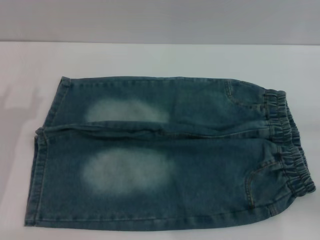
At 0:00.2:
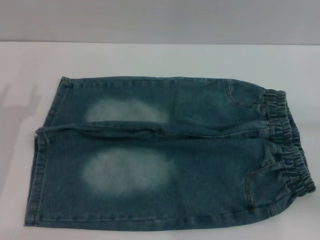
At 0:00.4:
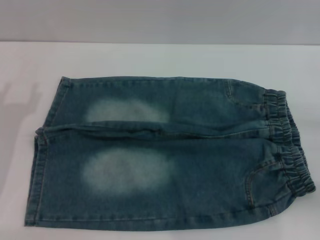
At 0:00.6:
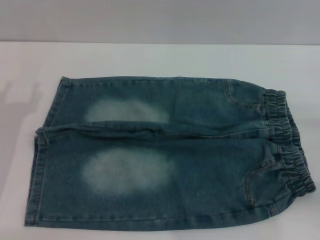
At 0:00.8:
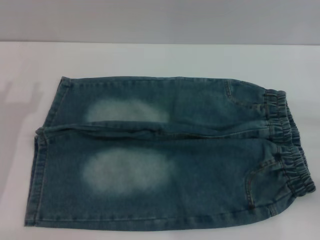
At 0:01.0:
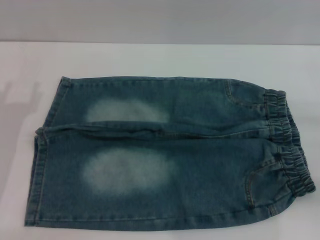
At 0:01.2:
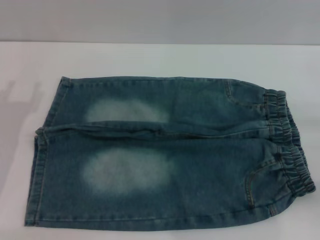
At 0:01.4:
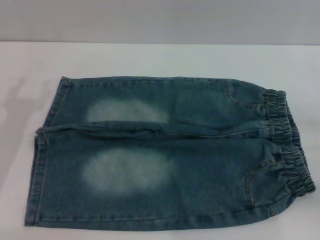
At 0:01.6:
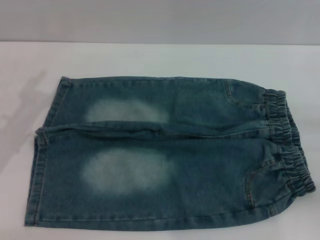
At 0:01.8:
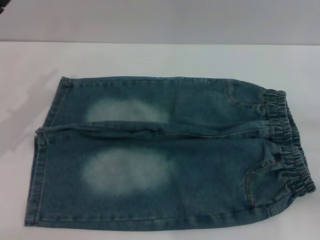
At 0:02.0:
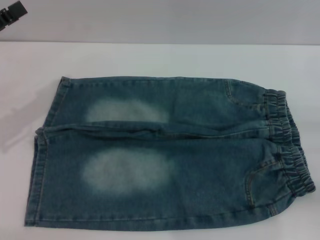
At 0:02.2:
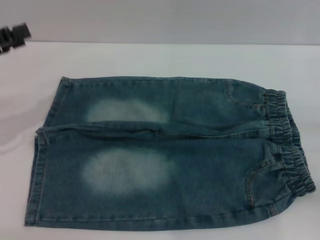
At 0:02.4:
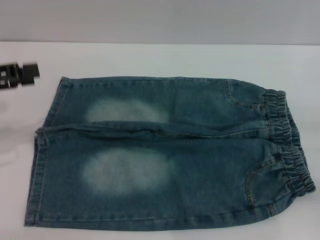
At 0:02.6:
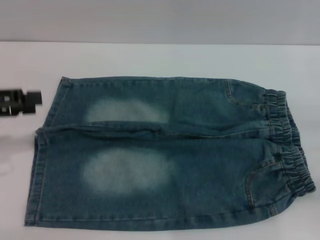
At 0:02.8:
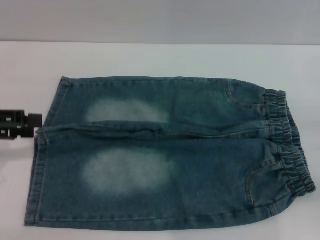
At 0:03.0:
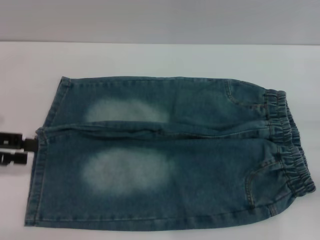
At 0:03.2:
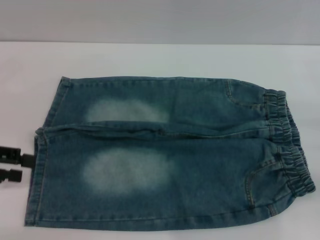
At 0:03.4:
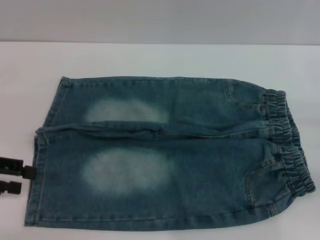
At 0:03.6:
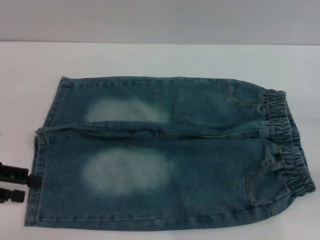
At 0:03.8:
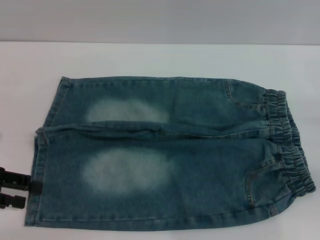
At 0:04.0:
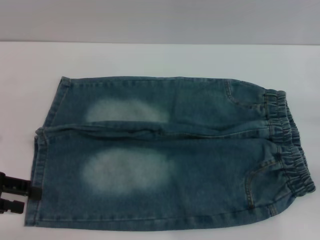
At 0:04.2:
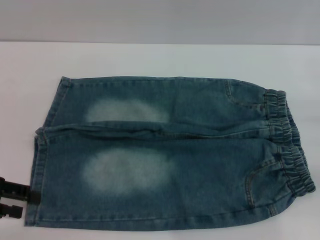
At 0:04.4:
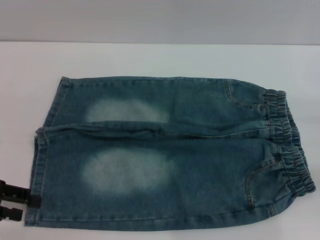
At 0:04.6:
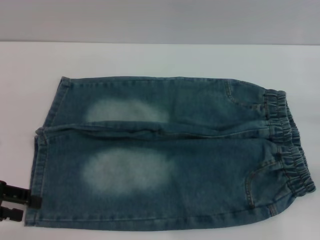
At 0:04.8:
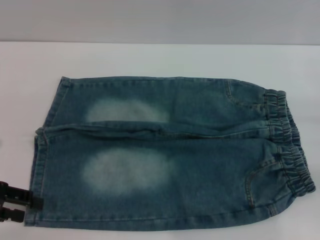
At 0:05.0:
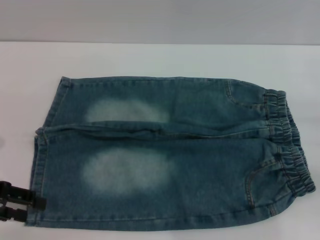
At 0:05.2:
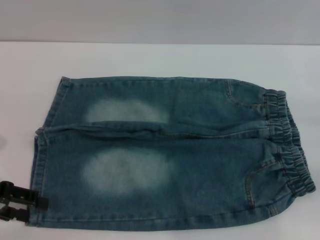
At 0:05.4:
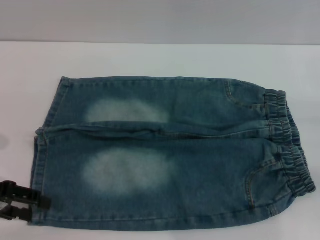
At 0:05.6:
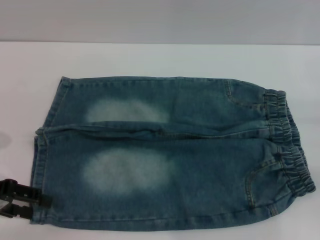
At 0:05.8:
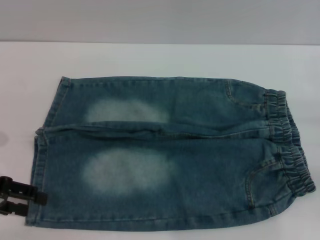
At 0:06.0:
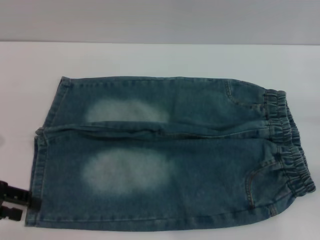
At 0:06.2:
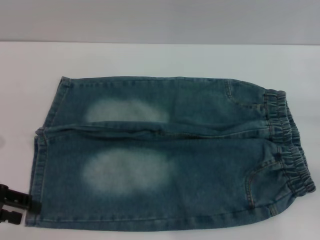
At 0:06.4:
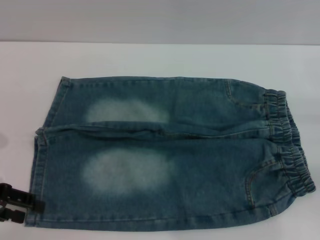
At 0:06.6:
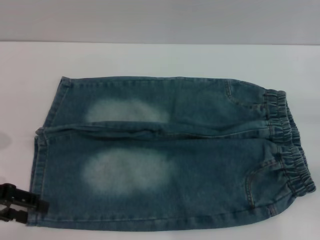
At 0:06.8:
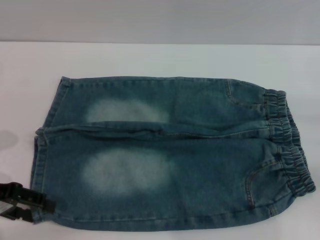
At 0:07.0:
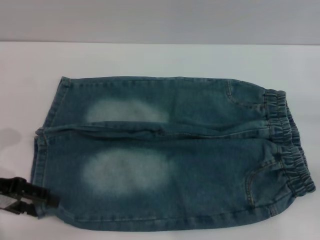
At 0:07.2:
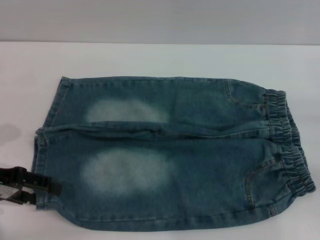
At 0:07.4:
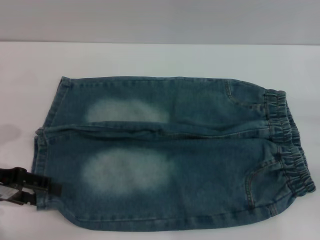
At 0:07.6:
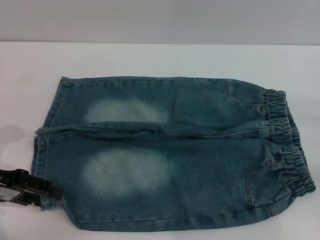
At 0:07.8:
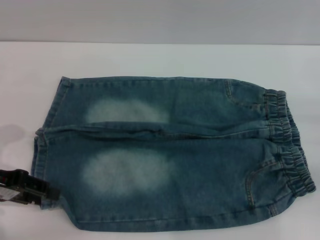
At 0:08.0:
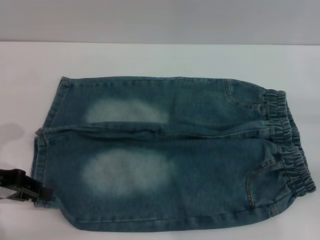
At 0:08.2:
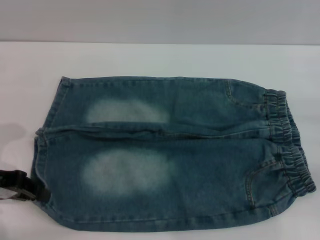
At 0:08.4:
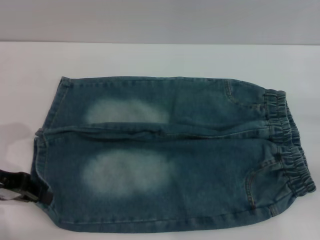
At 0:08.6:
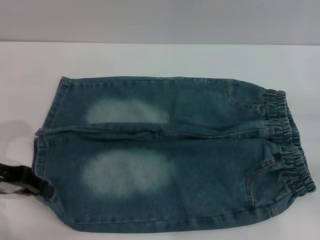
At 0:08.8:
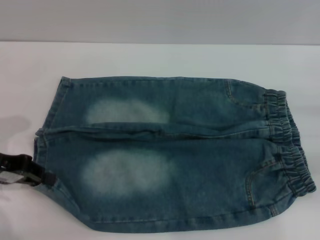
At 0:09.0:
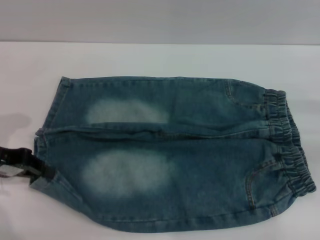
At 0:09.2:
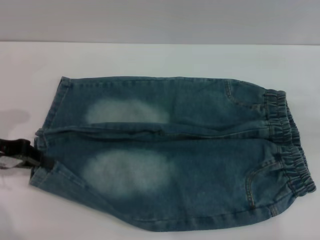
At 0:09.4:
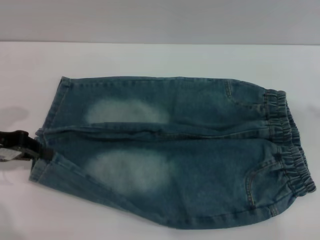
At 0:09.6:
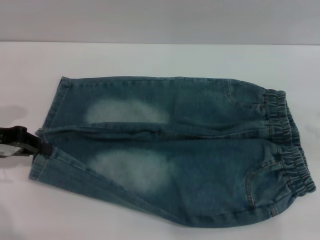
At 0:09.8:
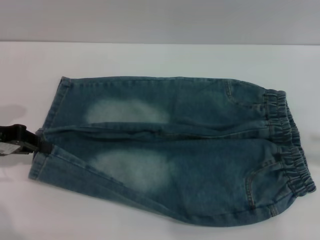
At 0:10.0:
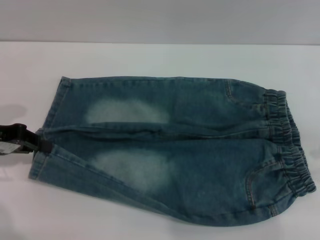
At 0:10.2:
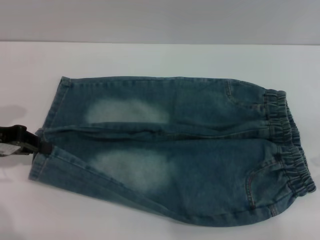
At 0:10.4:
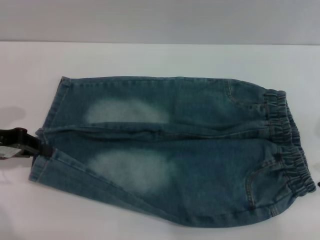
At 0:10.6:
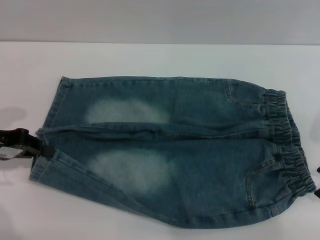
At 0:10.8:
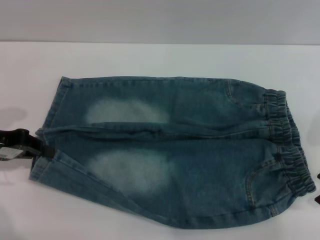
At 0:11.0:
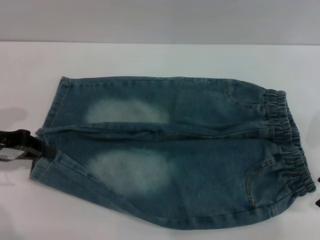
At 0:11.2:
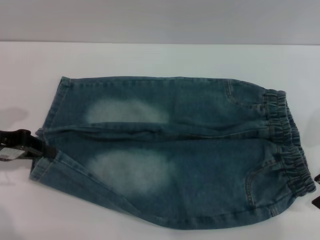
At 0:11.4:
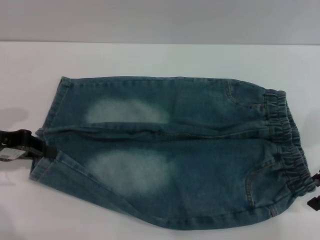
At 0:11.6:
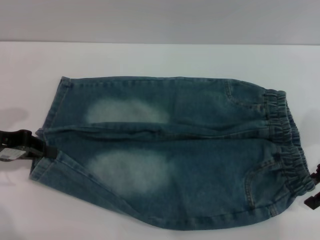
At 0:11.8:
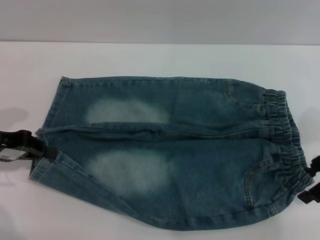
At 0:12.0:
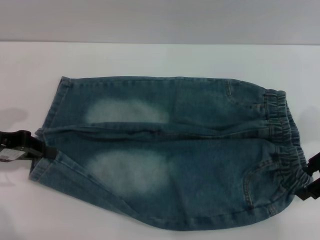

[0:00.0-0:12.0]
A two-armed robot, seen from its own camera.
0:01.6 to 0:03.0: The left gripper goes roughly 5 cm to the left.
0:03.0 to 0:04.4: The left gripper changes place by about 5 cm.
0:06.0 to 0:07.6: The grippers make only small movements.
0:07.6 to 0:09.0: The left gripper closes its fingers.
0:09.0 to 0:10.4: The right gripper moves to the left and upward, approximately 10 cm.
0:10.4 to 0:12.0: The grippers make only small movements.

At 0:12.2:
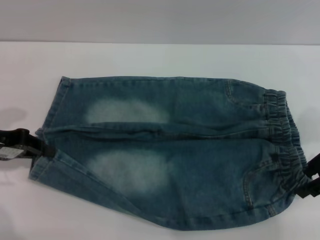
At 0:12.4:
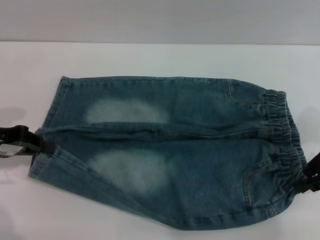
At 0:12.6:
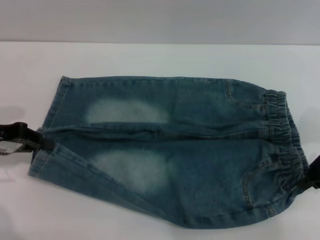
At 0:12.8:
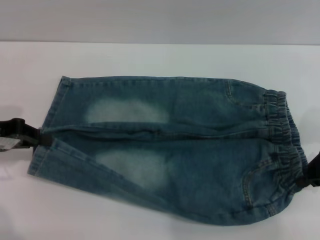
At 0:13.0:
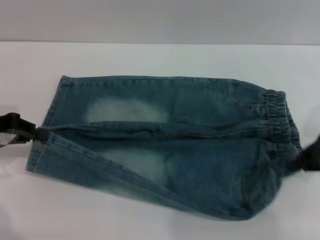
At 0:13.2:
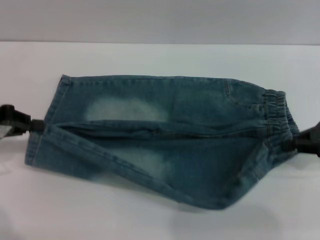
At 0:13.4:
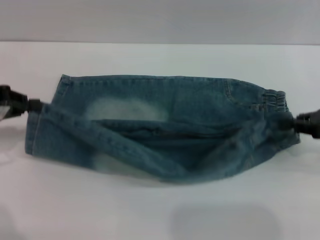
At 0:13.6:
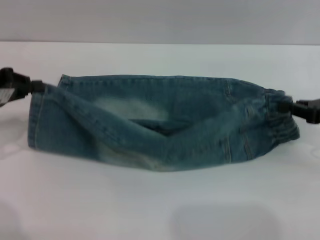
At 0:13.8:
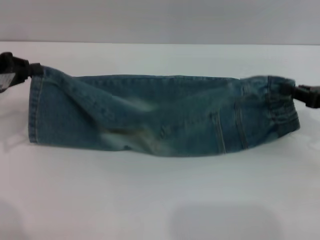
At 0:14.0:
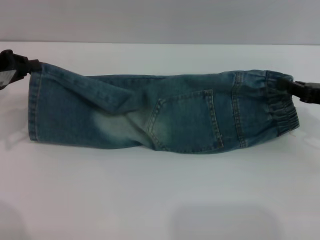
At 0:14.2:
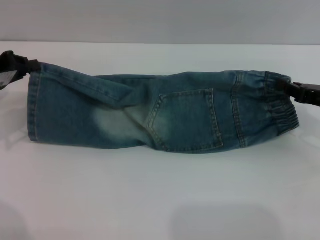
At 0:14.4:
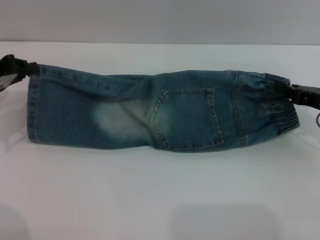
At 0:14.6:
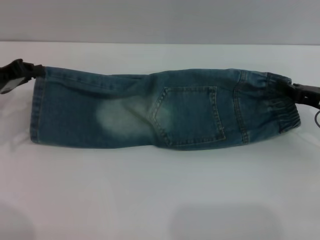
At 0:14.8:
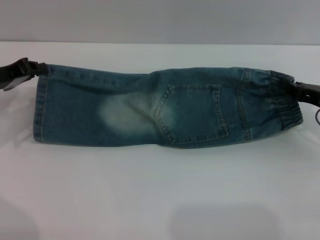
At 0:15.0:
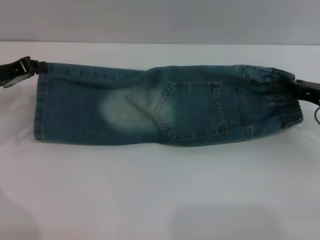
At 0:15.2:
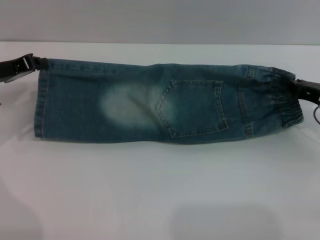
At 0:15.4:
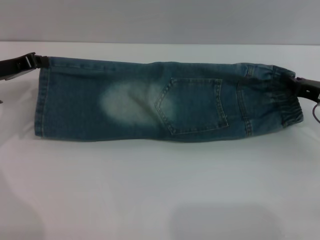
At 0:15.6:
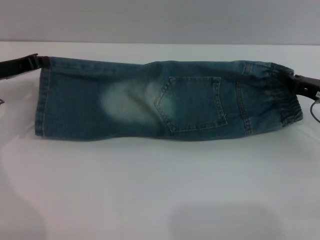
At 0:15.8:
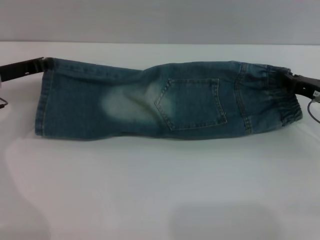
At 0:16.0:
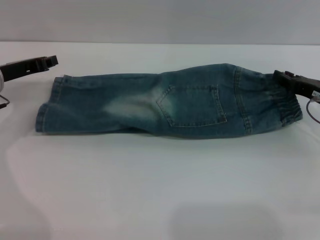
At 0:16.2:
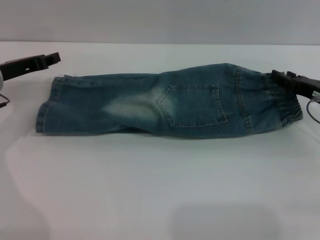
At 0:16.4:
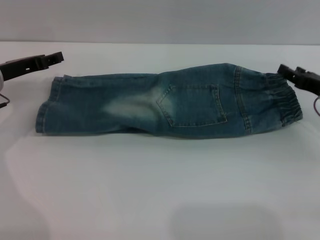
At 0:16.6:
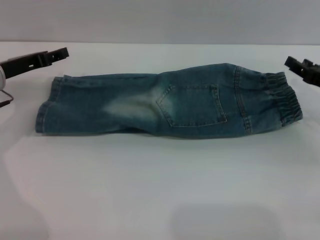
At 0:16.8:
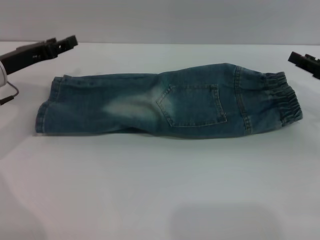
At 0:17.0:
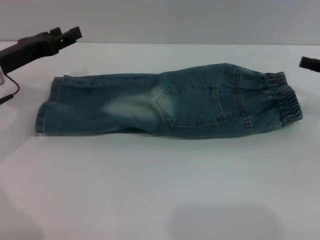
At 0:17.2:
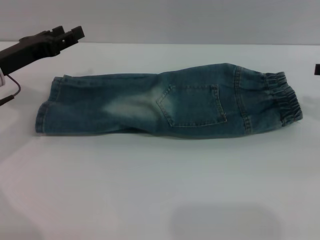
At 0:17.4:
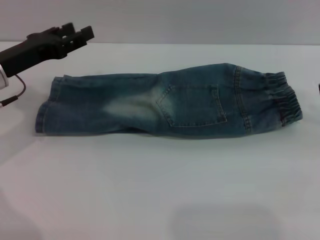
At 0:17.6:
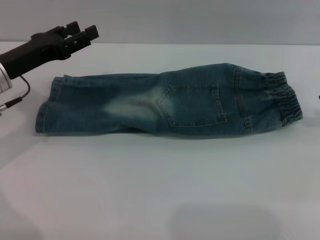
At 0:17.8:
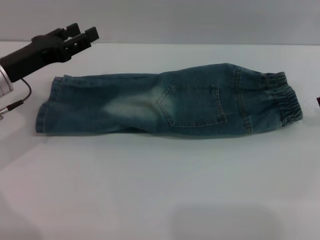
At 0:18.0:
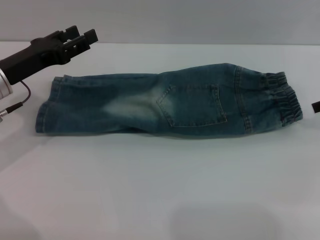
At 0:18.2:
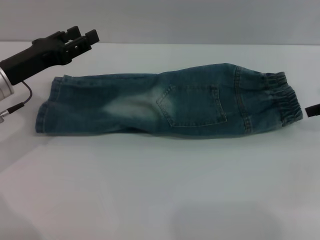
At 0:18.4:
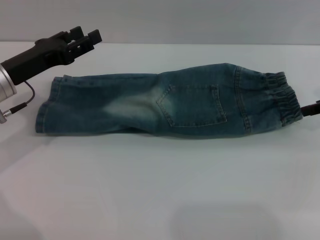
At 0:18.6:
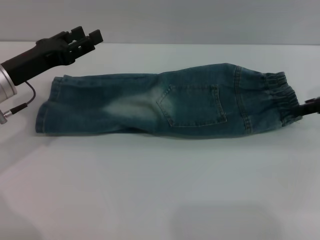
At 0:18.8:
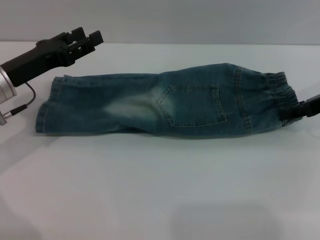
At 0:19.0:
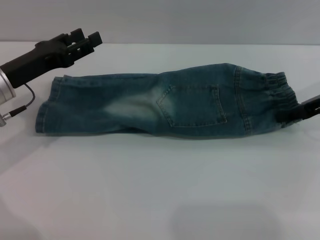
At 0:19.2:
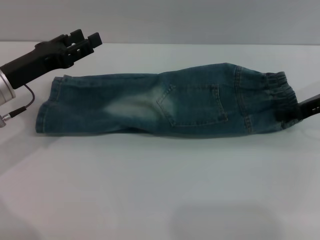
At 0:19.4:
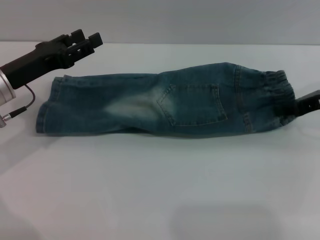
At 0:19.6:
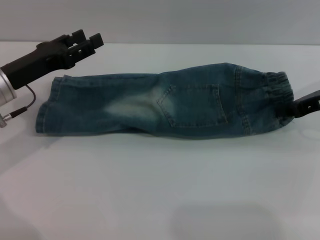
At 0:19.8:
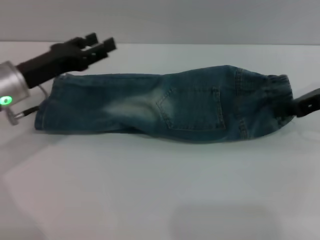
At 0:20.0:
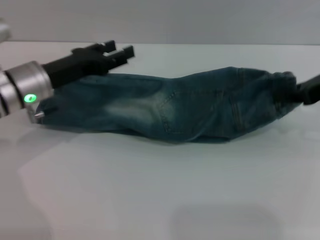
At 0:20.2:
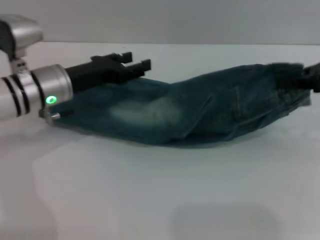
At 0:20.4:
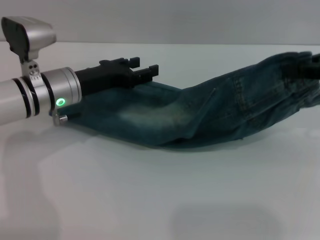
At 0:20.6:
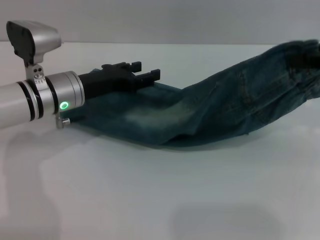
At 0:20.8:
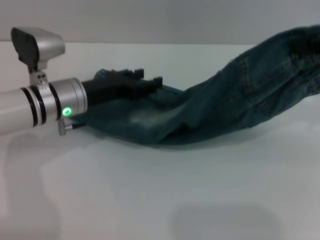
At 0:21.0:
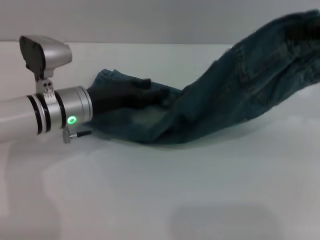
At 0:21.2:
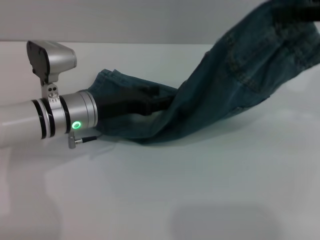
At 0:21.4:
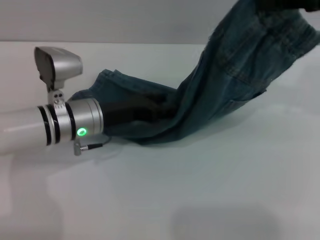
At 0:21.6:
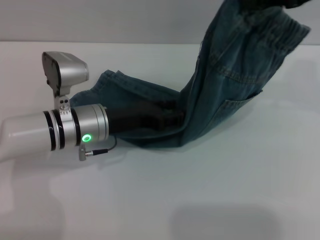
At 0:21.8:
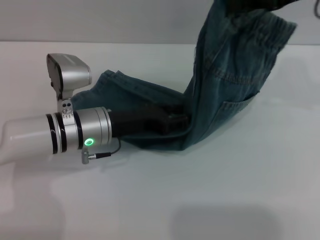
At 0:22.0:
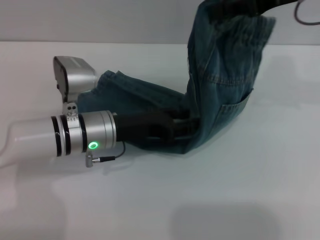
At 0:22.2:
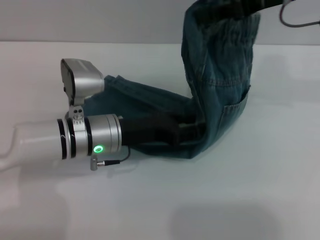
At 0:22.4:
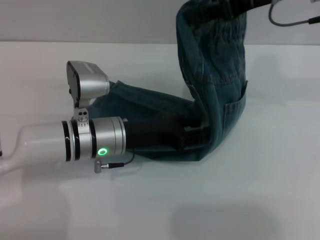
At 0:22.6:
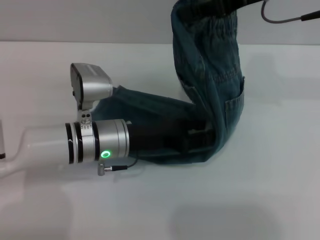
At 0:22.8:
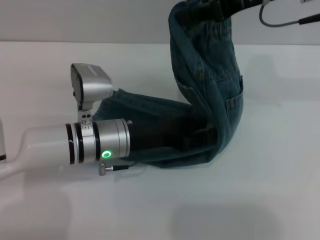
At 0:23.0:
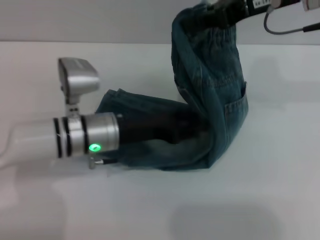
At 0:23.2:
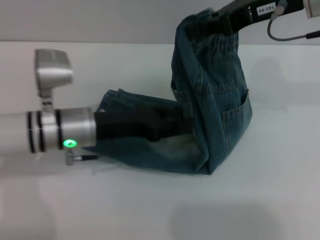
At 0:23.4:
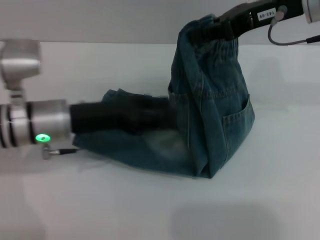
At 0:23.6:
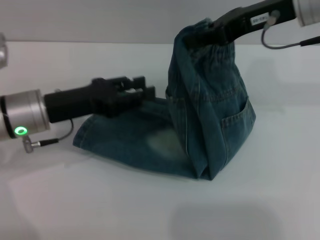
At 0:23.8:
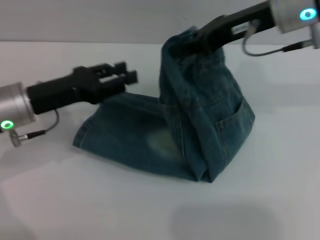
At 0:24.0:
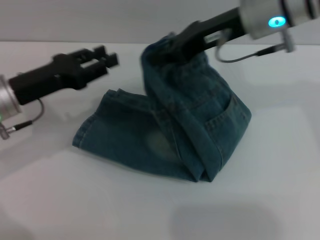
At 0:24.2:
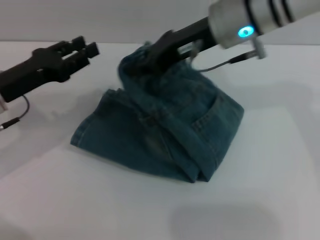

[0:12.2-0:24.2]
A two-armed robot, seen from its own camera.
Step, 0:12.2 to 0:16.6: Fold the bottom of the pants upward with both grippers.
0:12.2 to 0:13.8: The right gripper closes its fingers.
0:13.8 to 0:15.2: The right gripper ends up some 5 cm from where it was, while the left gripper ends up approximately 5 cm from where it was.
0:15.2 to 0:16.6: The left gripper opens up. Meanwhile the right gripper opens up.
0:16.6 to 0:18.2: The right gripper is displaced upward by roughly 10 cm.
0:18.2 to 0:19.8: The right gripper ends up some 5 cm from where it was, and closes.
0:19.8 to 0:21.2: The right gripper travels upward by roughly 15 cm. Meanwhile the left gripper travels to the right by roughly 10 cm.
0:21.2 to 0:22.6: The right gripper moves to the left and forward, about 10 cm. The left gripper ends up roughly 5 cm from where it was.
0:22.6 to 0:24.2: The right gripper shifts about 10 cm to the left and downward, while the left gripper heads to the left, covering approximately 15 cm.
